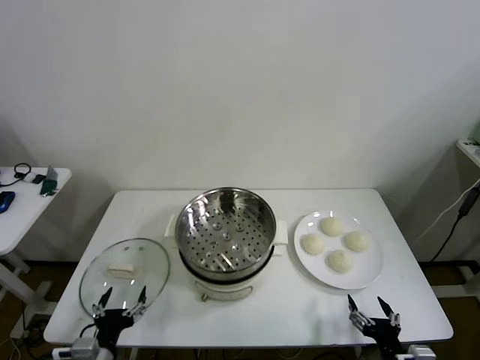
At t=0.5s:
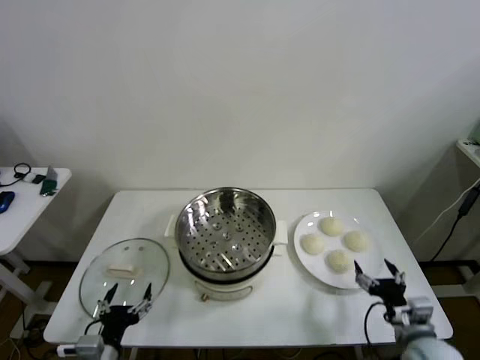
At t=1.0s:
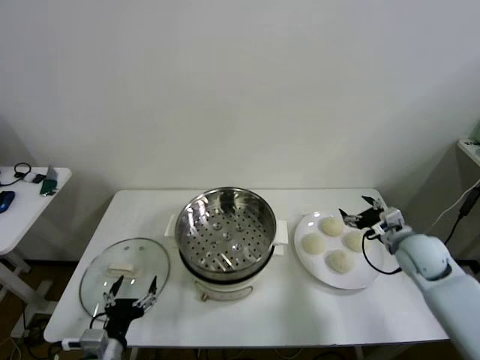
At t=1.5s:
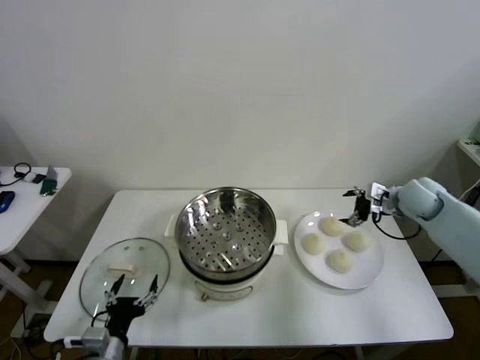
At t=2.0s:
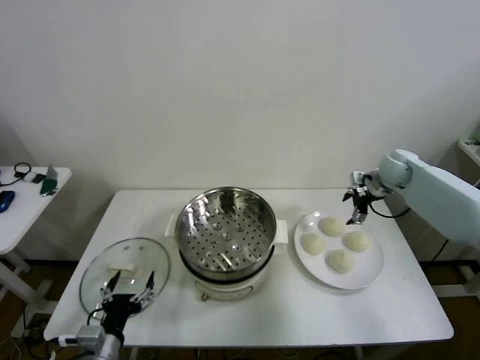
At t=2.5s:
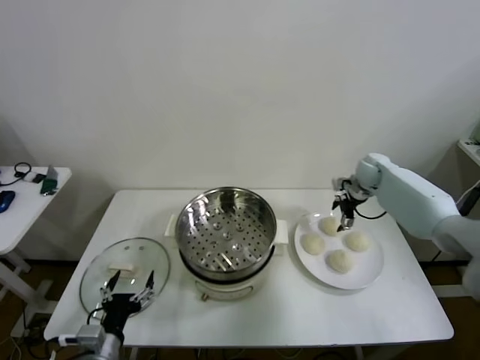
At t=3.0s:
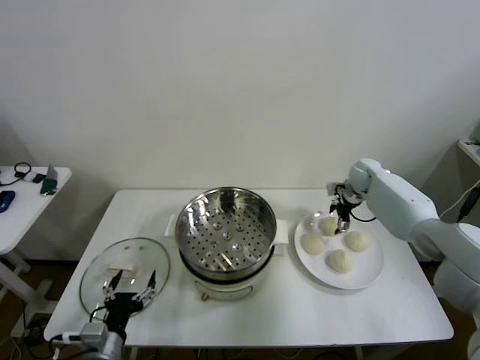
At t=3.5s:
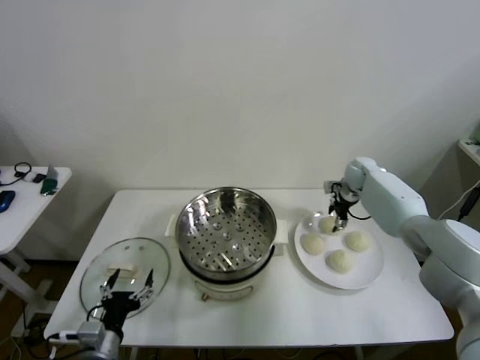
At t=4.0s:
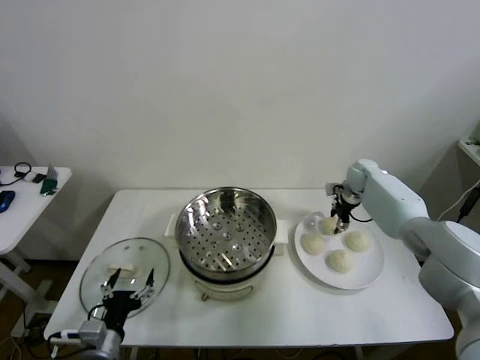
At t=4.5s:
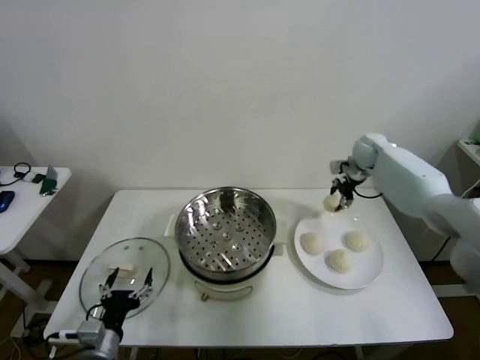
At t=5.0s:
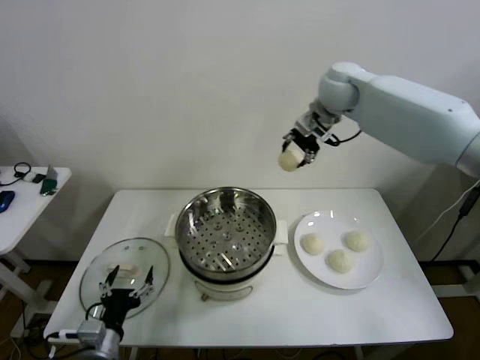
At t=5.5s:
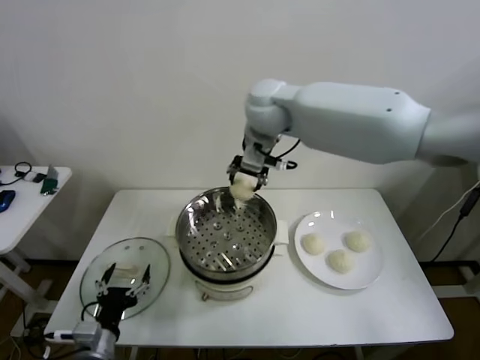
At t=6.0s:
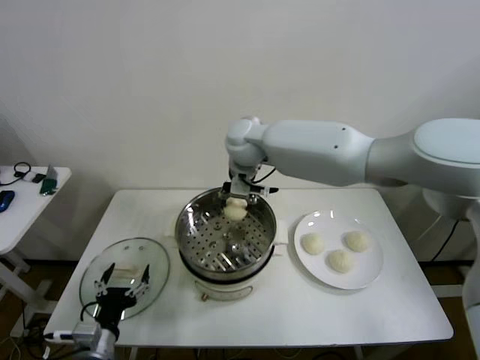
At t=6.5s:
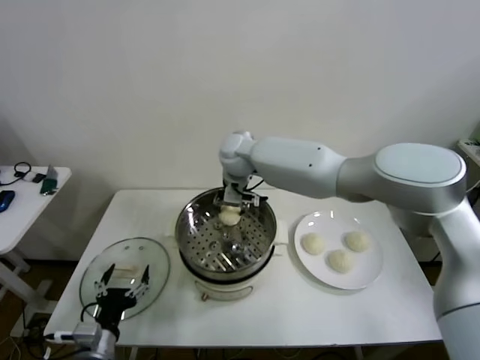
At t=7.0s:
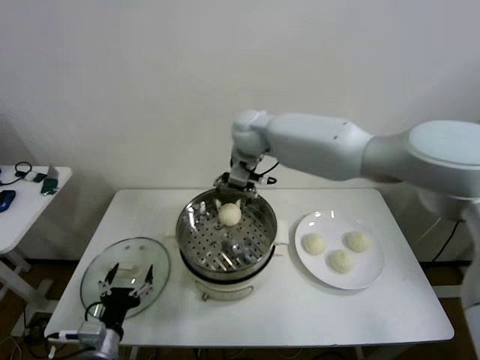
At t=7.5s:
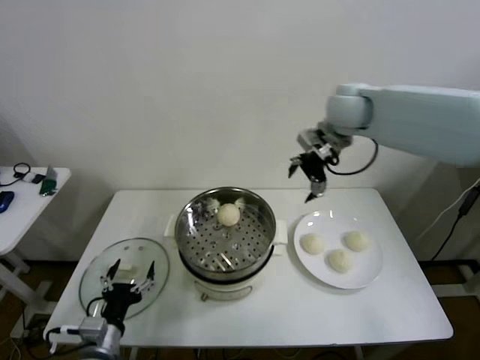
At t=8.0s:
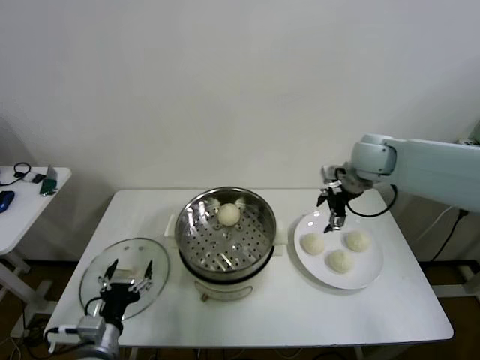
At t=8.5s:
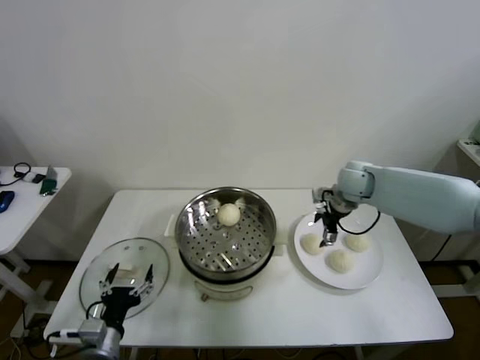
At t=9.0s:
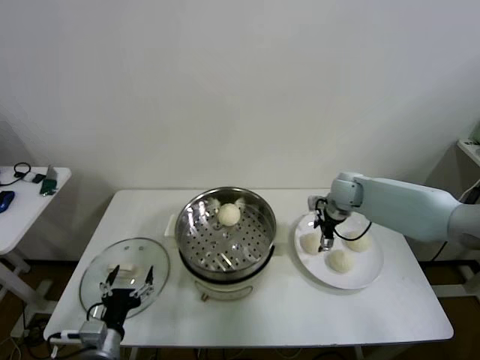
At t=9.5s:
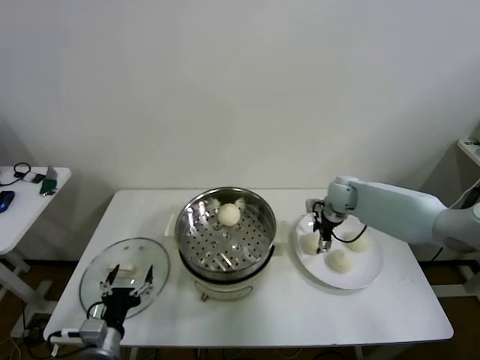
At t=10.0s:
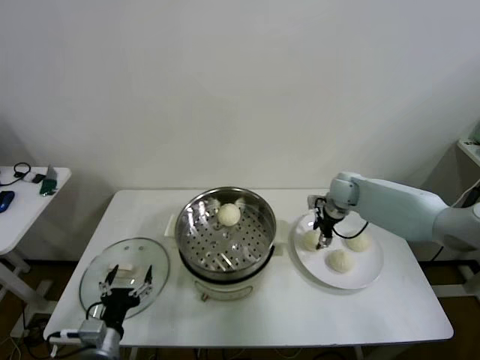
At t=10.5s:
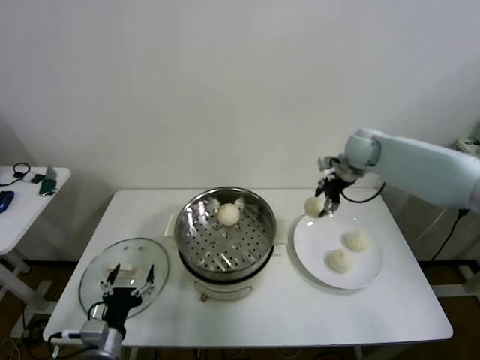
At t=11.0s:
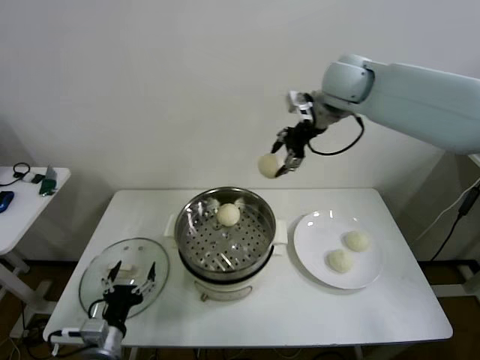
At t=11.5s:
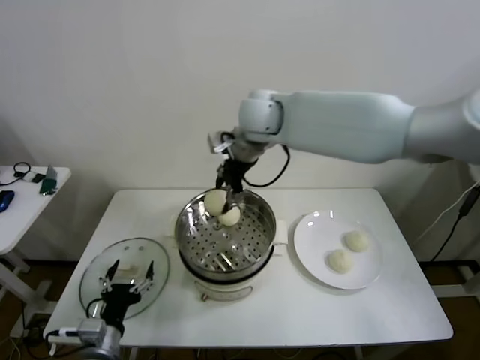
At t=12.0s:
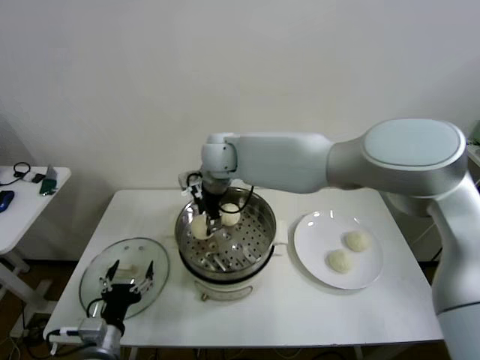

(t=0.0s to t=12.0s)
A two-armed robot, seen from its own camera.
Step, t=0.0s - t=3.5s: Grasp the baozi in the plate with right gripper.
Step, t=4.0s - t=6.5s: Place the baozi on the steamer with right gripper.
Step, t=7.0s - t=9.5s: Grasp the baozi in the plate with right gripper.
t=2.0s - t=4.0s: The right gripper moves downward, approximately 5 cm, and closes up.
t=4.0s - t=6.0s: The right gripper shifts approximately 40 cm to the left and upward.
t=6.0s - t=8.0s: The right gripper heads to the right, covering some 30 cm, and opens its fingers.
t=8.0s - t=10.0s: The right gripper moves downward, roughly 15 cm, and closes.
t=10.0s - t=12.0s: The right gripper heads to the left and upward, covering roughly 35 cm.

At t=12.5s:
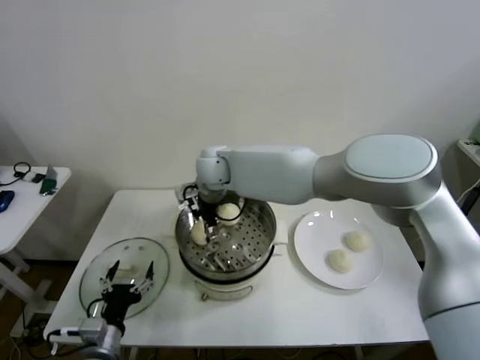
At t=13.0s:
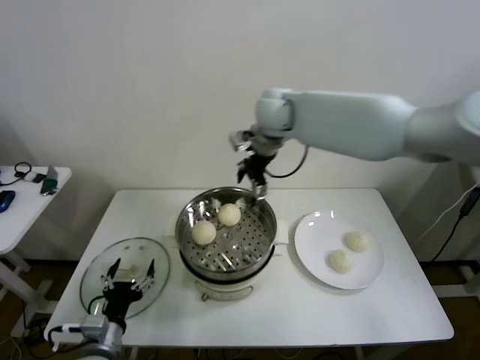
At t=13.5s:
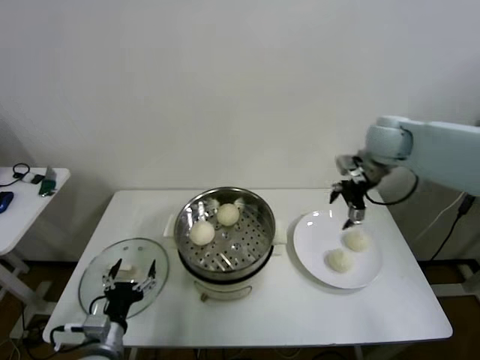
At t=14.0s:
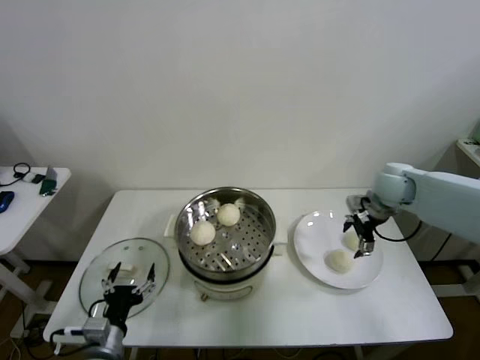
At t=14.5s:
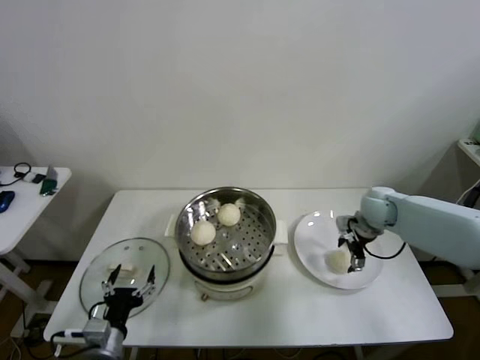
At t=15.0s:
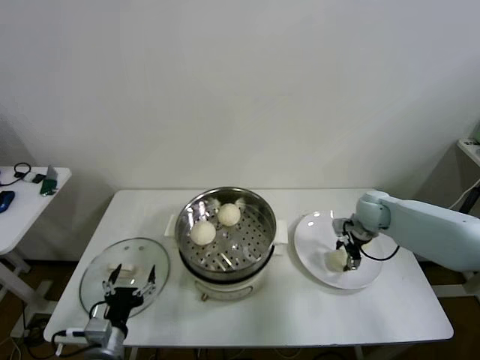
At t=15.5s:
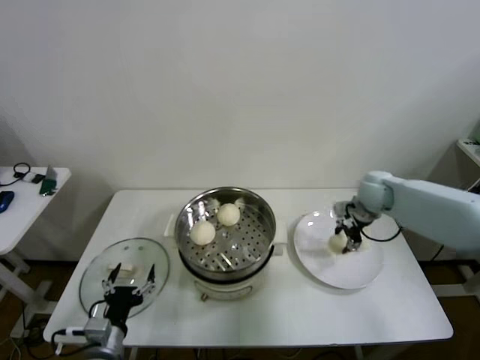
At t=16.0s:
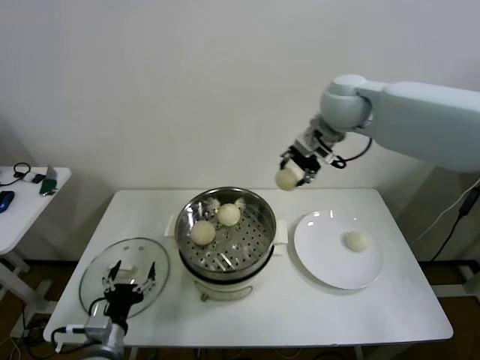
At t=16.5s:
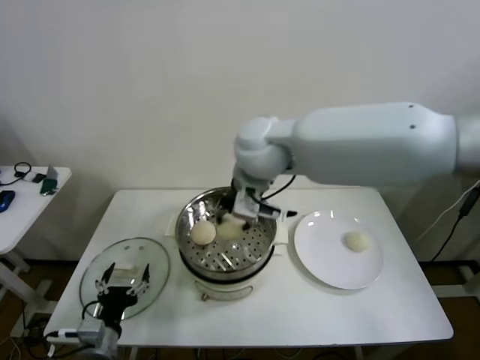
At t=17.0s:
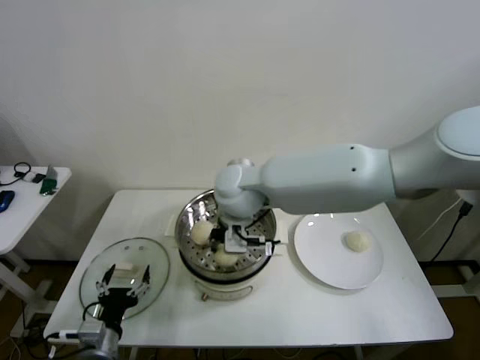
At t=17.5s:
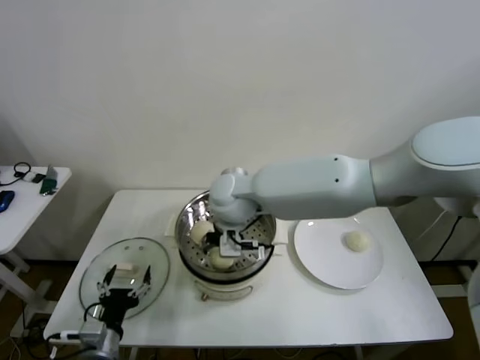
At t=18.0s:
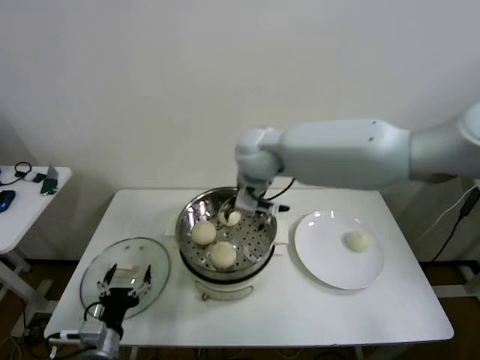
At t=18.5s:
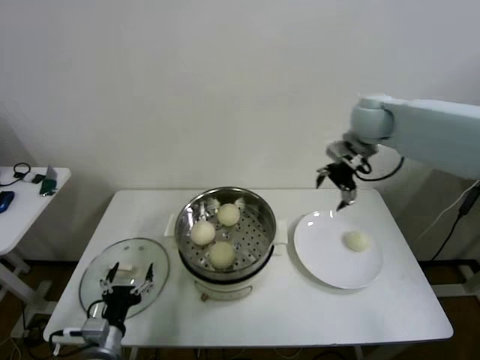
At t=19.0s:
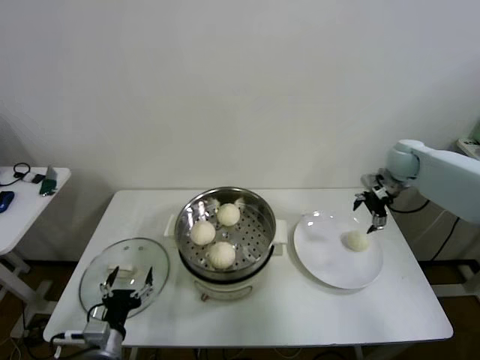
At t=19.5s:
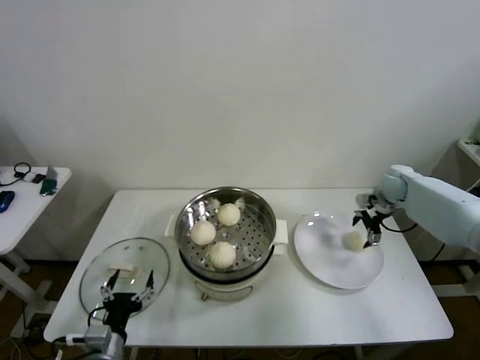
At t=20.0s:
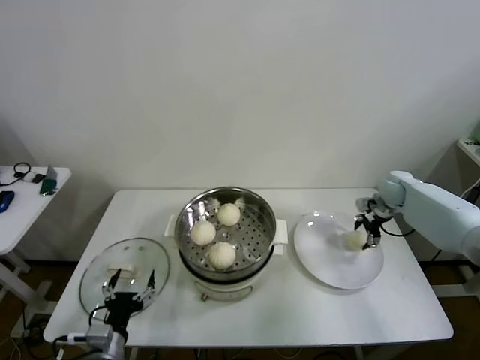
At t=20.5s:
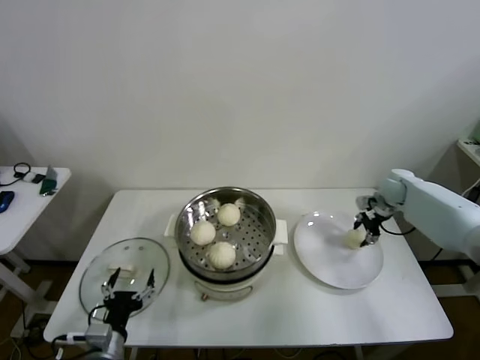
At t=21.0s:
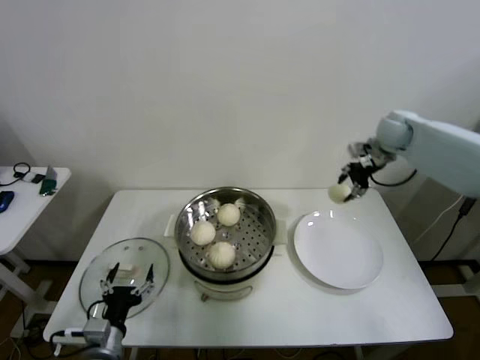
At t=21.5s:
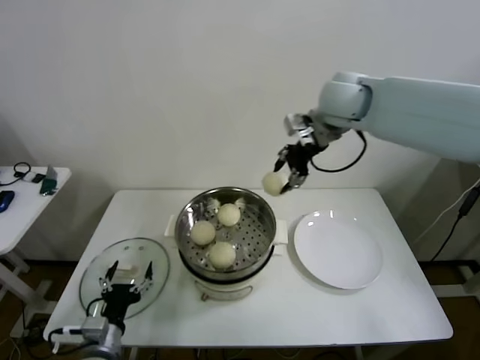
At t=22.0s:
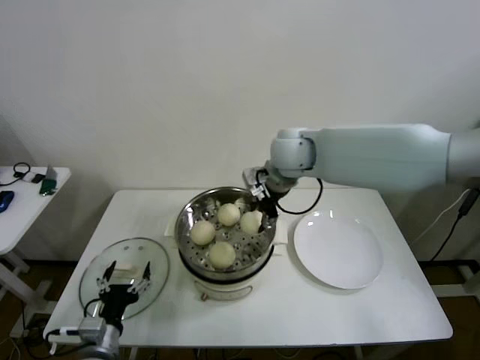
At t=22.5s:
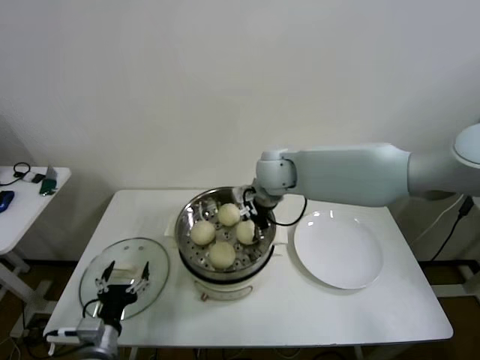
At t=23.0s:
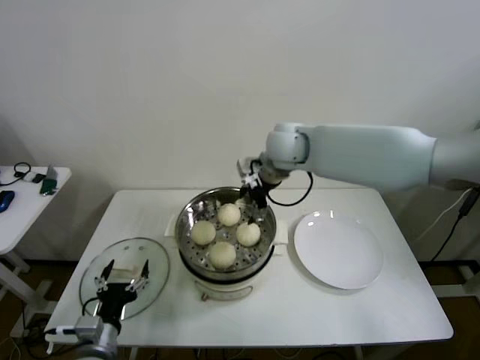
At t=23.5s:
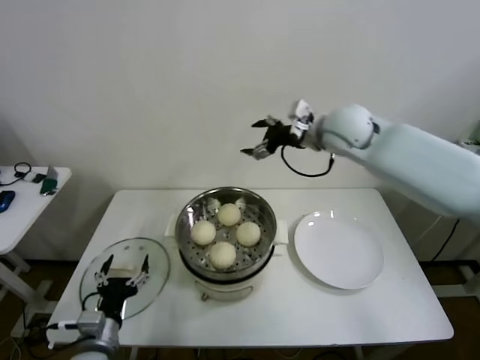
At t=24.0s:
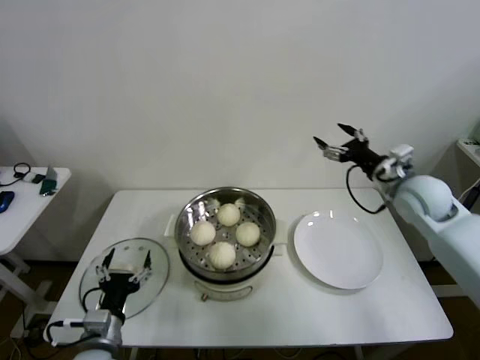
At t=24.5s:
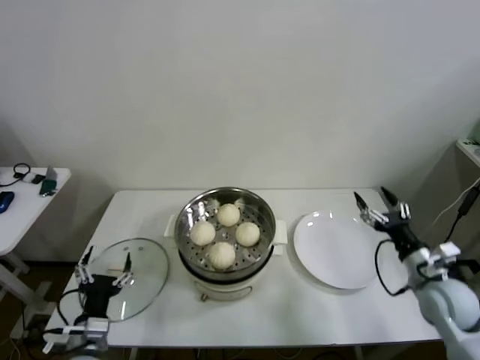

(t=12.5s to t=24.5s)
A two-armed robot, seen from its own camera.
Step, t=12.5s - t=14.5s: Grasp the baozi in the plate with right gripper.
Step, t=15.0s - t=17.0s: Place the baozi on the steamer with right gripper.
Step, t=17.5s - t=20.0s: Grasp the baozi in the plate with right gripper.
Step, t=20.5s - t=22.5s: Place the baozi on the steamer with right gripper.
t=12.5s - t=14.5s: The right gripper moves to the right, some 40 cm.
t=14.5s - t=16.5s: The right gripper heads to the left and upward, covering approximately 40 cm, and closes its fingers.
t=16.5s - t=18.5s: The right gripper moves to the right and forward, roughly 30 cm, and opens.
t=18.5s - t=20.5s: The right gripper travels downward and to the right by approximately 25 cm, and closes its fingers.
t=20.5s - t=22.5s: The right gripper shifts about 35 cm to the left.
t=22.5s - t=24.5s: The right gripper moves to the right, backward and downward, about 40 cm, and opens its fingers.

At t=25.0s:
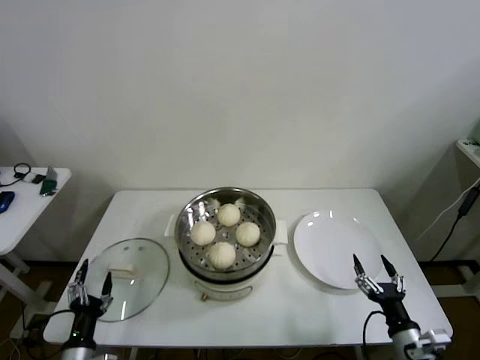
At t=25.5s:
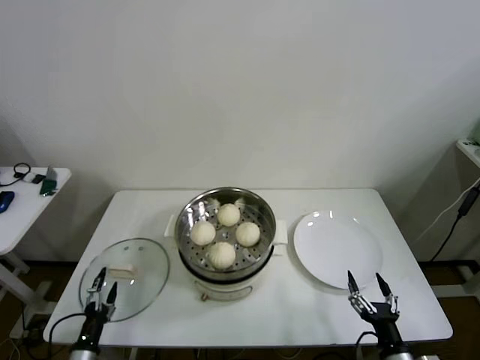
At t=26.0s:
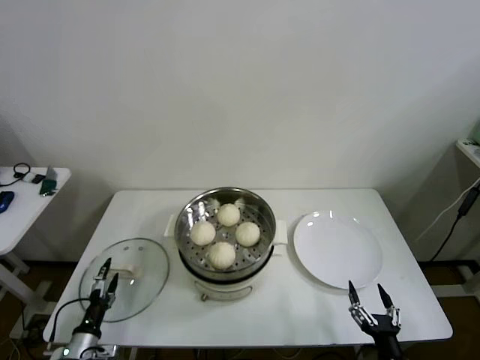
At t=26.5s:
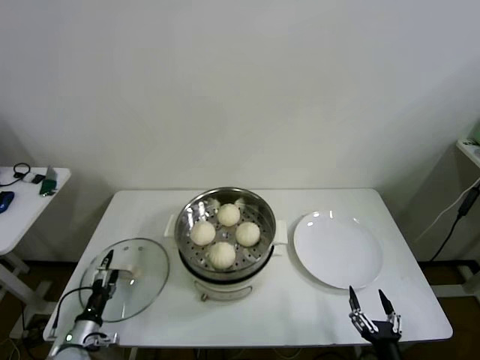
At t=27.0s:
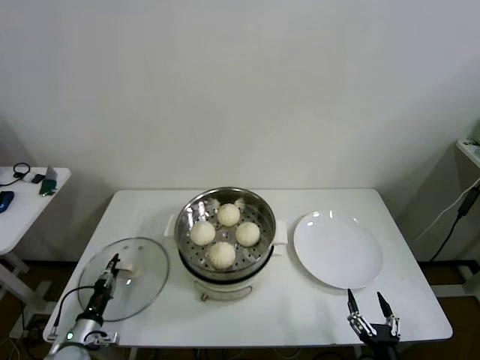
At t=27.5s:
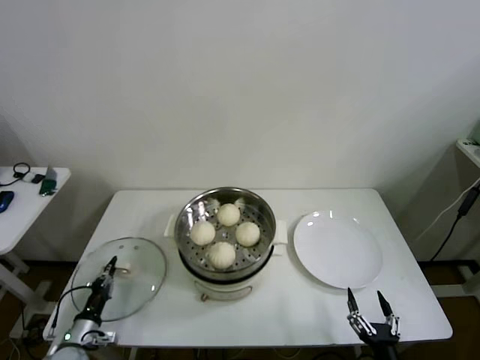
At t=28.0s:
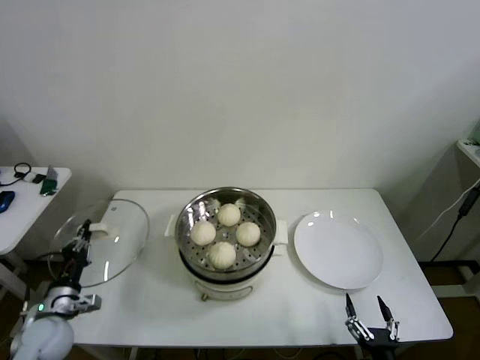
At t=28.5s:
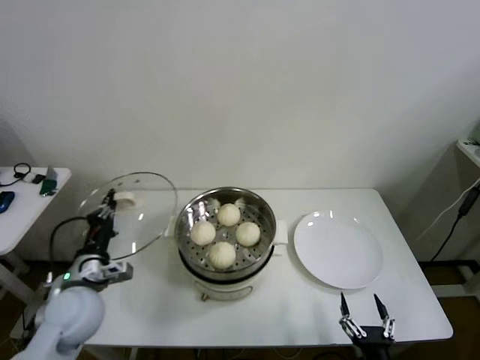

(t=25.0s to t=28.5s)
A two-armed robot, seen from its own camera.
Step, t=25.0s - t=27.0s: Grasp the pot lid with left gripper.
t=25.0s - t=27.0s: The left gripper is displaced downward, forward and to the left by roughly 15 cm, and closes its fingers, while the right gripper goes approximately 10 cm backward and to the left.
t=27.0s - t=28.5s: The left gripper heads upward, covering approximately 20 cm, and closes.
